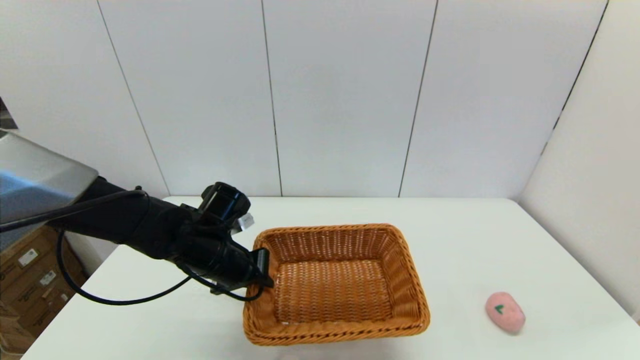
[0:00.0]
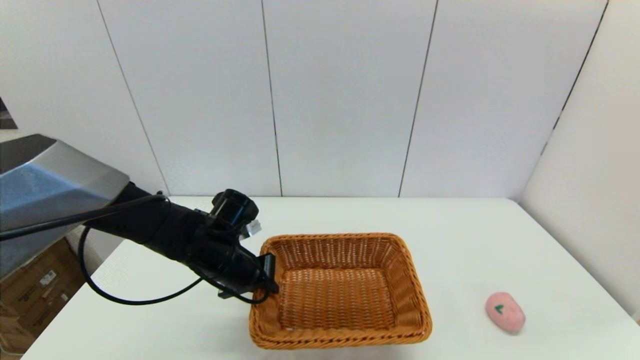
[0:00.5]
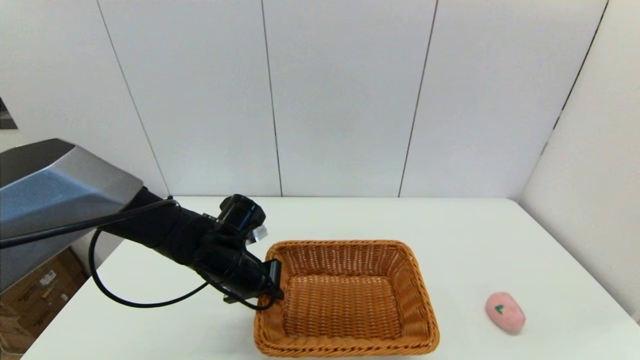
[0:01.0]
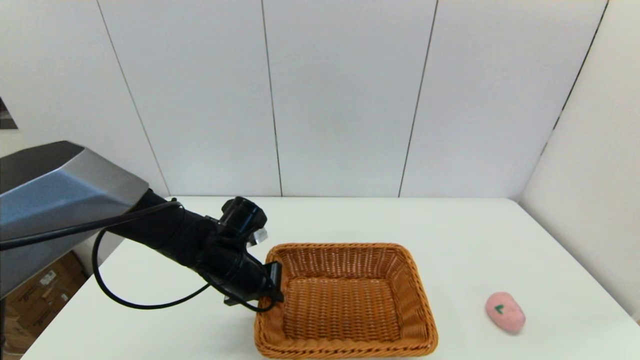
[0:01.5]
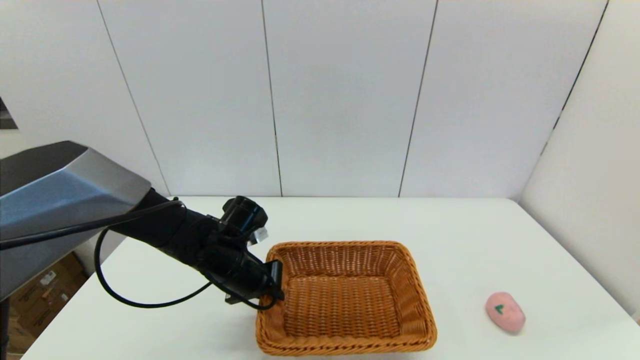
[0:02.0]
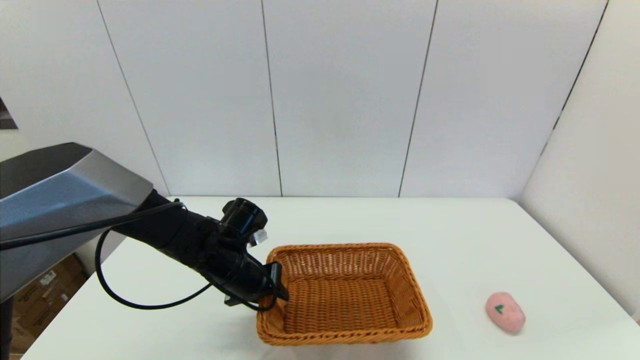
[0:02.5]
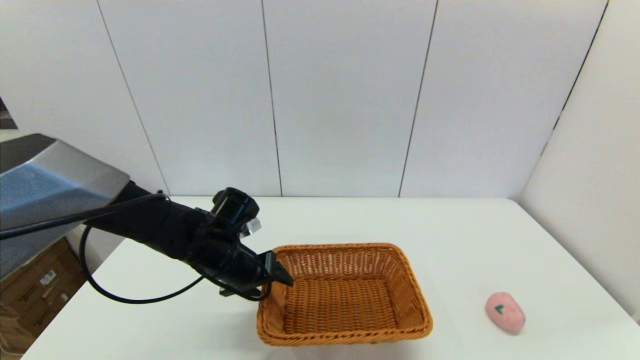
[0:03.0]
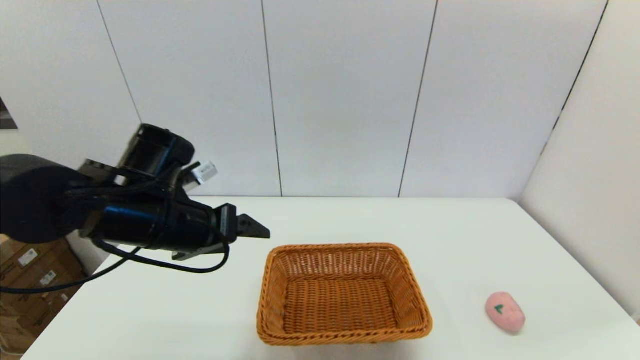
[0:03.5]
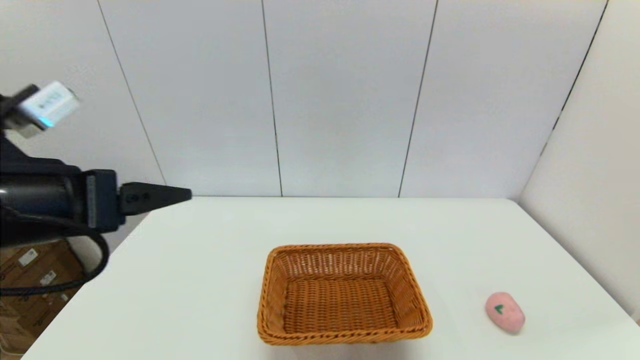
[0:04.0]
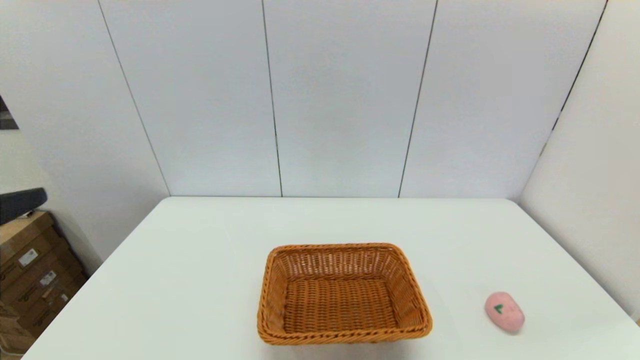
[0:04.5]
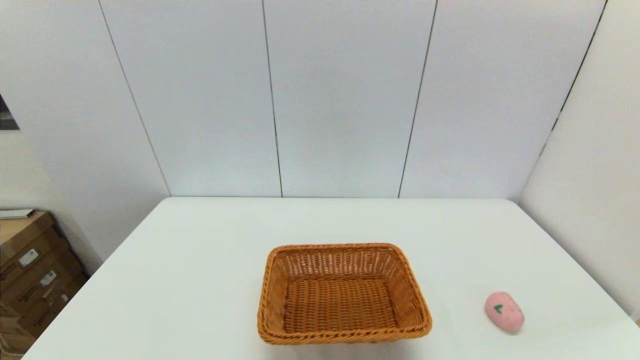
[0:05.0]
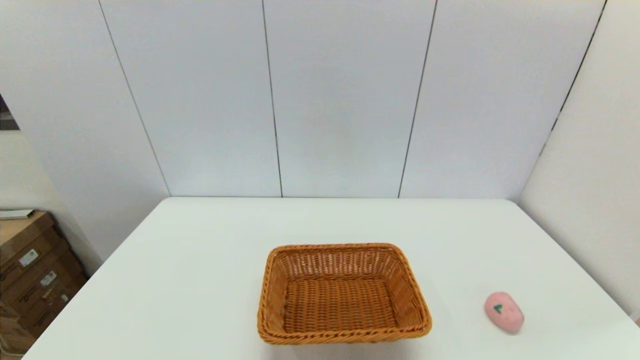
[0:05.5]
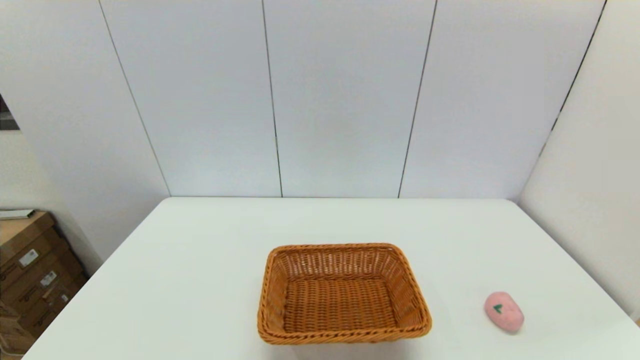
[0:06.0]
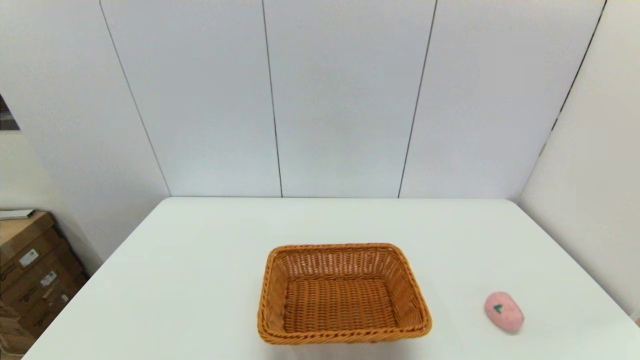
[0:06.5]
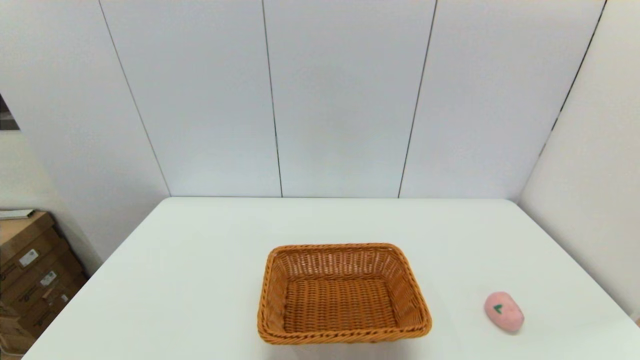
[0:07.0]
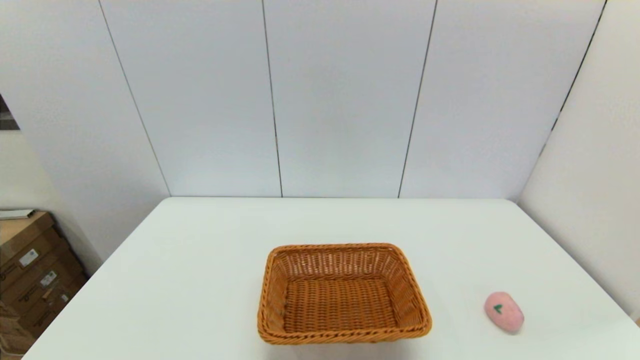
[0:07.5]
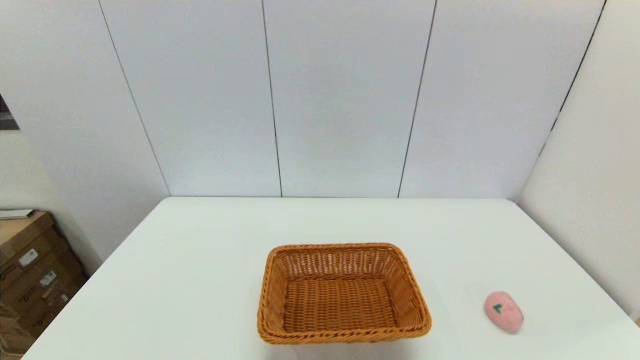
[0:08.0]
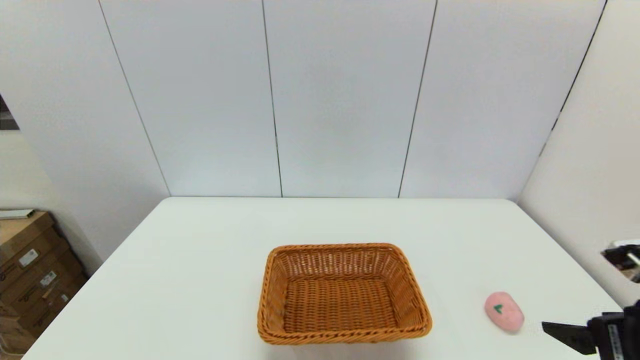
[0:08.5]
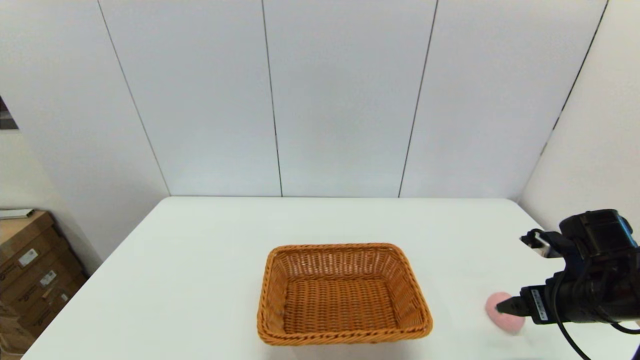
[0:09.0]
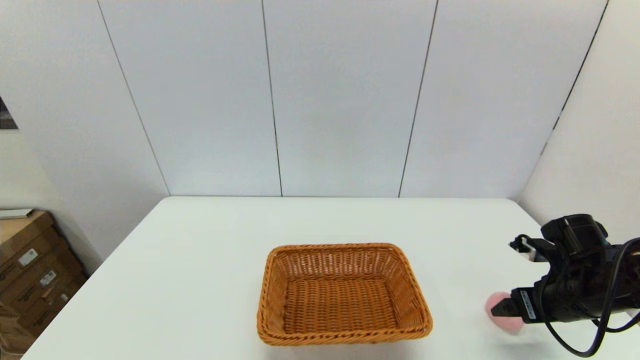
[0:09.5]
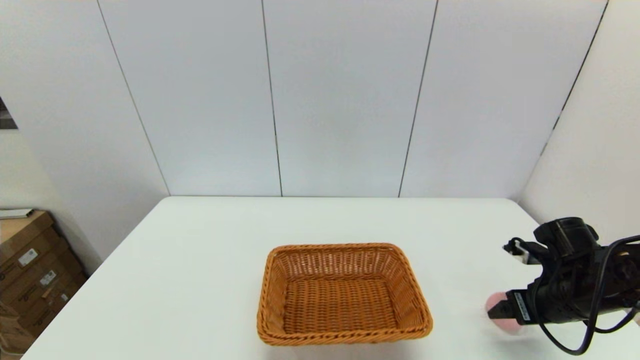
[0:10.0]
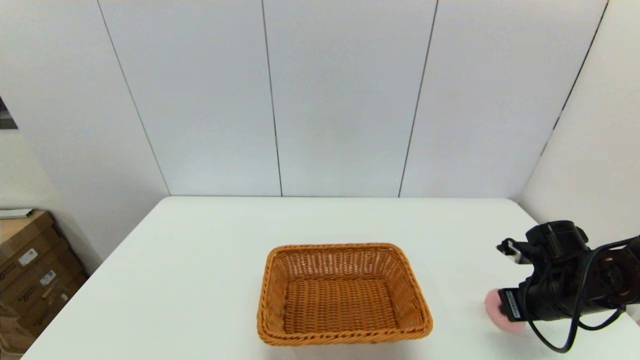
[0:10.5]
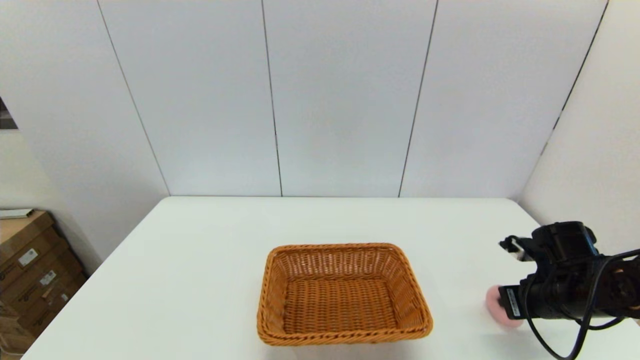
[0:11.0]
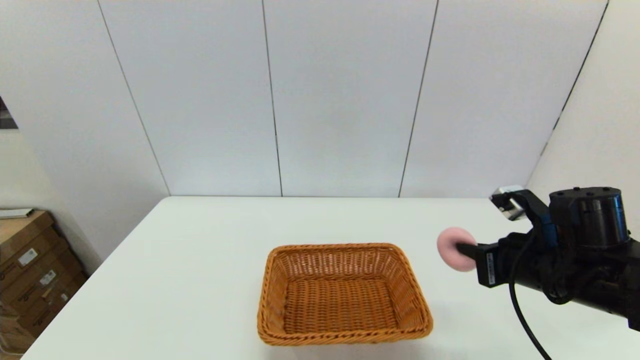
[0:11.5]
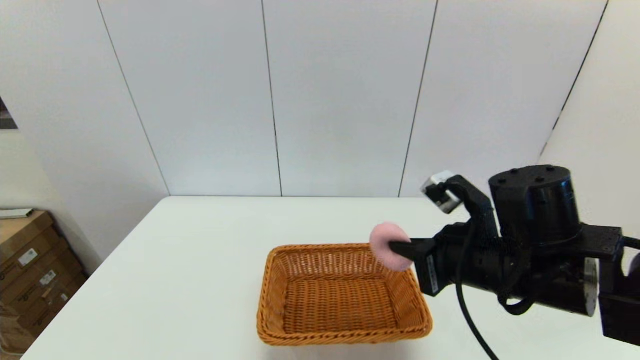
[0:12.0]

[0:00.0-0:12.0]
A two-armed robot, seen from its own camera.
Step, 0:00.0 to 0:02.5: Place the light basket on the middle of the table with the left gripper.
Step, 0:03.5 to 0:10.5: Grasp the peach with the right gripper.
0:00.0 to 0:02.0: There are only small adjustments of the grippers.
0:02.0 to 0:04.0: The left gripper moves upward, backward and to the left, some 30 cm, and opens up.
0:04.0 to 0:06.0: The left gripper heads backward and downward, covering some 25 cm.
0:08.0 to 0:10.0: The right gripper moves forward, roughly 25 cm.
0:10.0 to 0:12.0: The right gripper goes about 20 cm to the left and upward, and closes up.

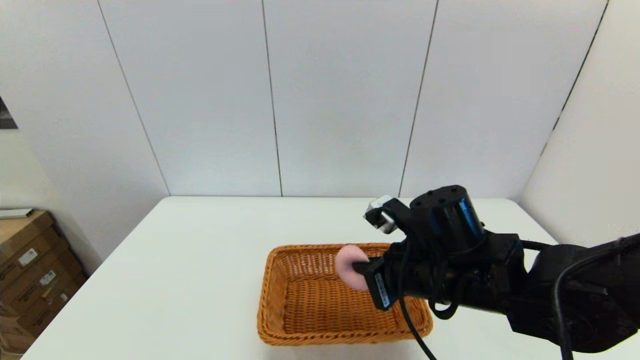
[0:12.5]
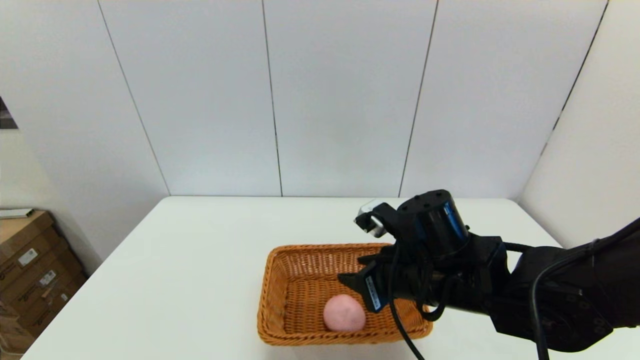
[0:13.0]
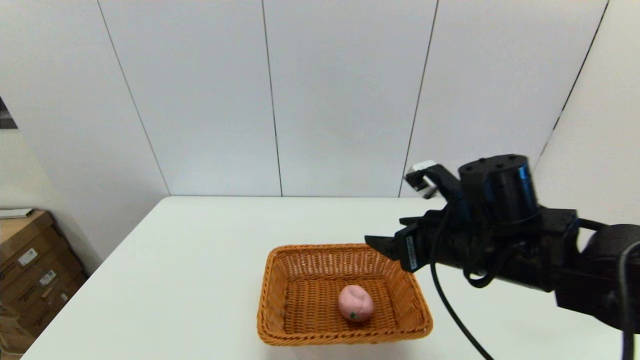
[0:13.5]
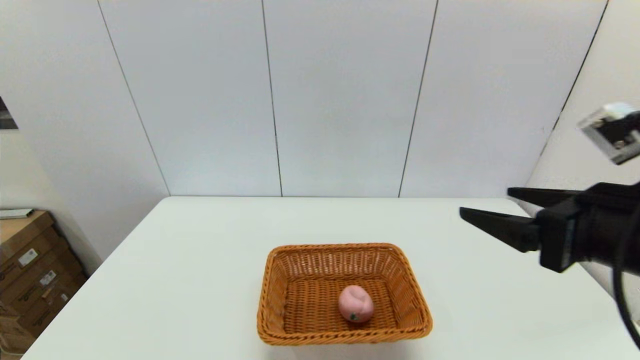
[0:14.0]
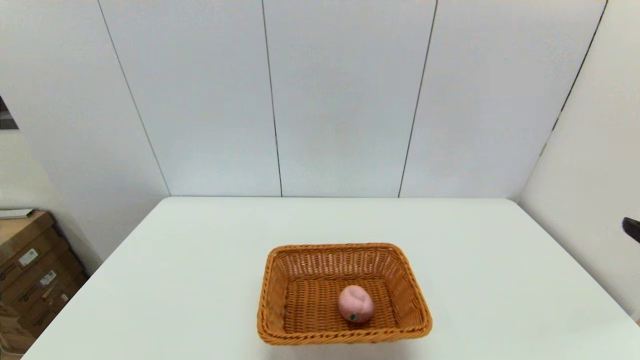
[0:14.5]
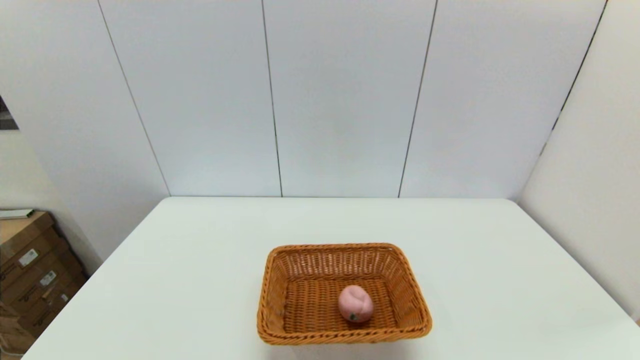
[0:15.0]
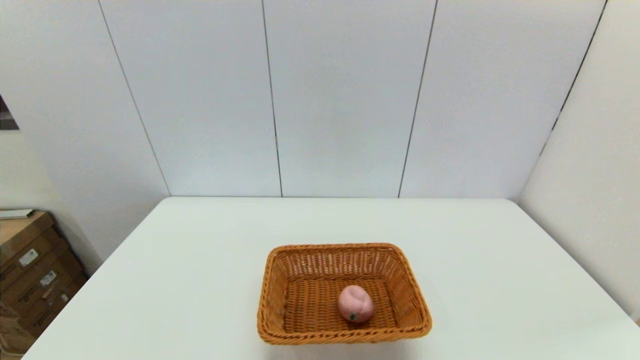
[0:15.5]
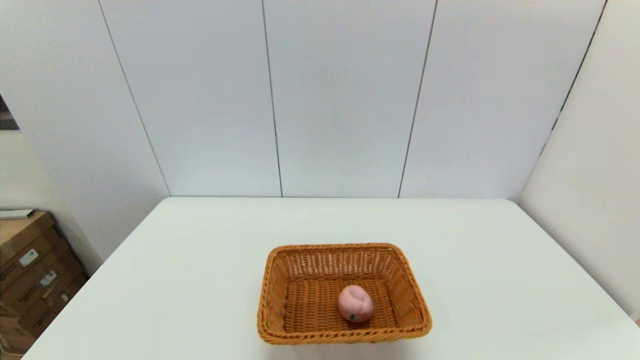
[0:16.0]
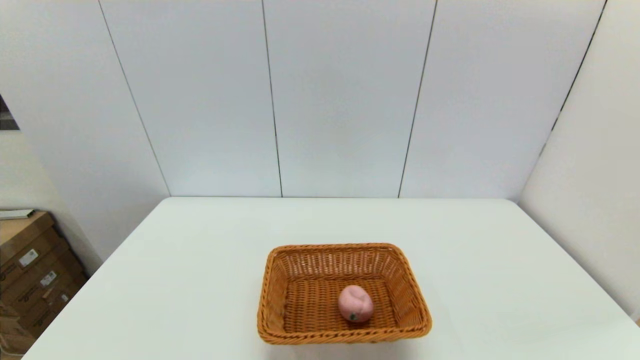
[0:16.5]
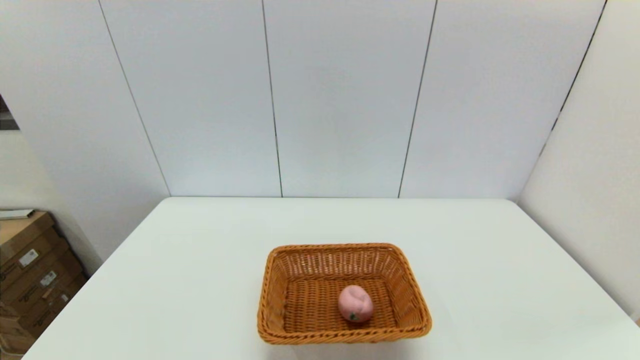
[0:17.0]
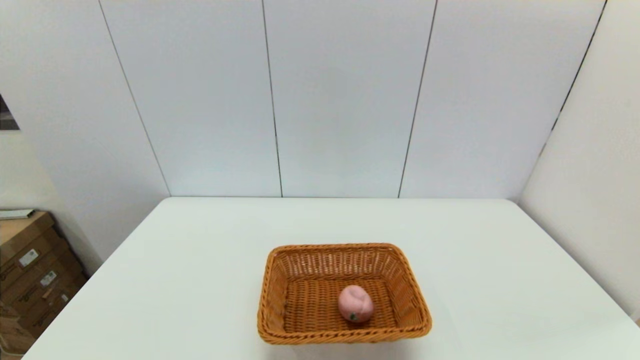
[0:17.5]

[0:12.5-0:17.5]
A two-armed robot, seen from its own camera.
0:12.5 to 0:15.0: The right gripper heads backward, to the right and upward, covering about 30 cm, and opens.

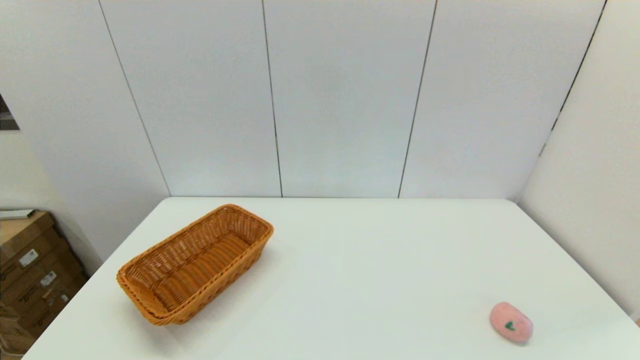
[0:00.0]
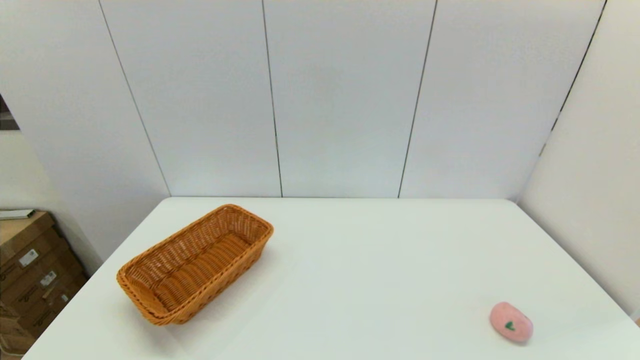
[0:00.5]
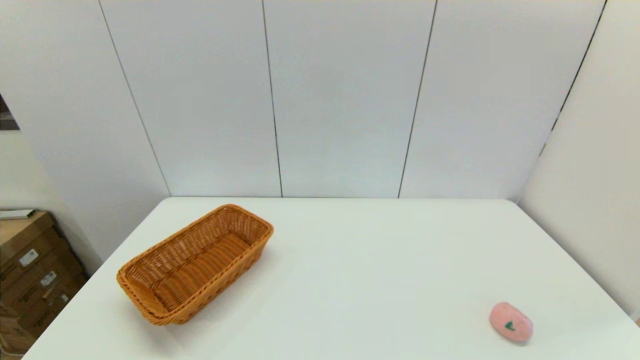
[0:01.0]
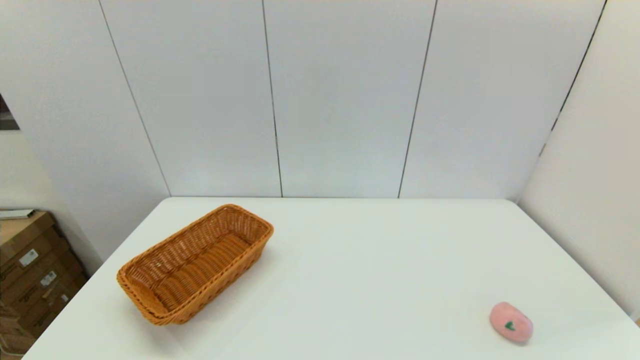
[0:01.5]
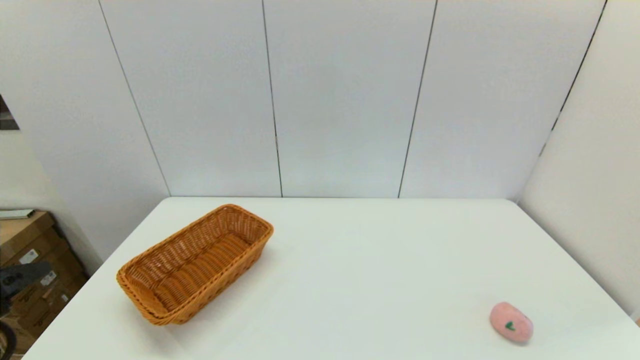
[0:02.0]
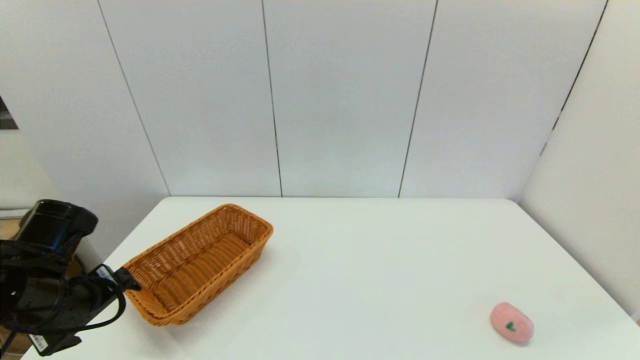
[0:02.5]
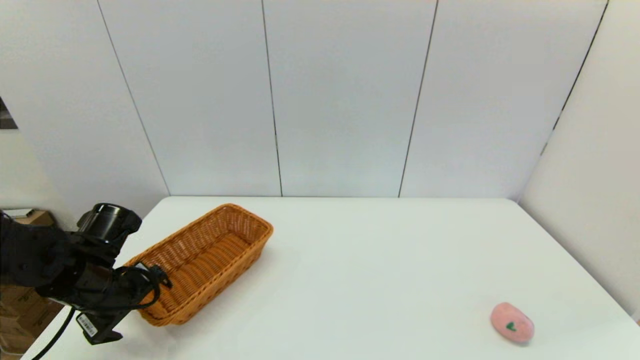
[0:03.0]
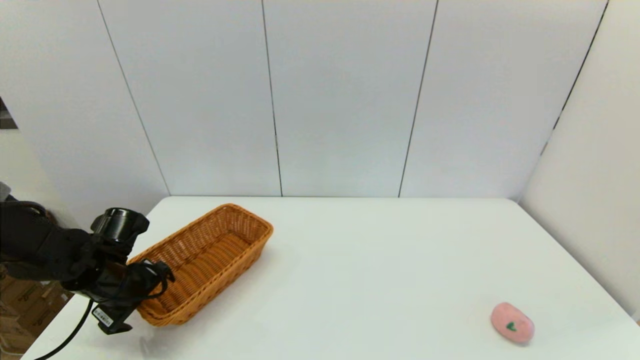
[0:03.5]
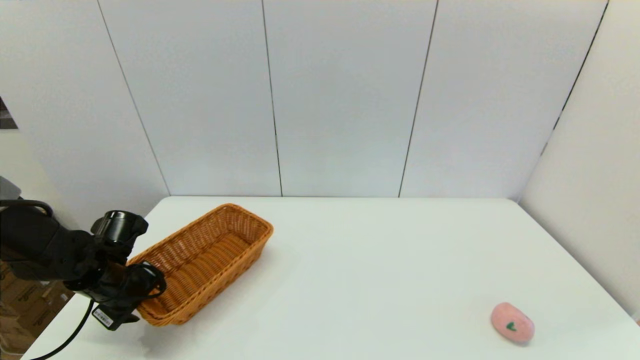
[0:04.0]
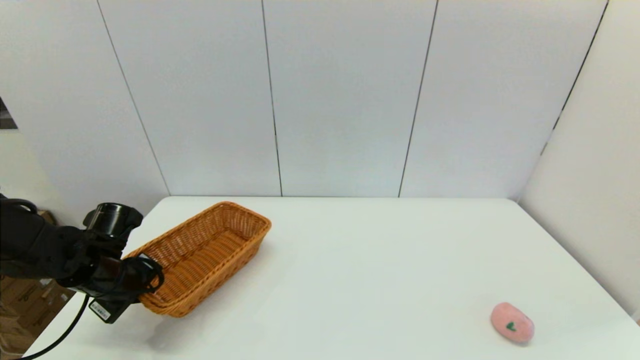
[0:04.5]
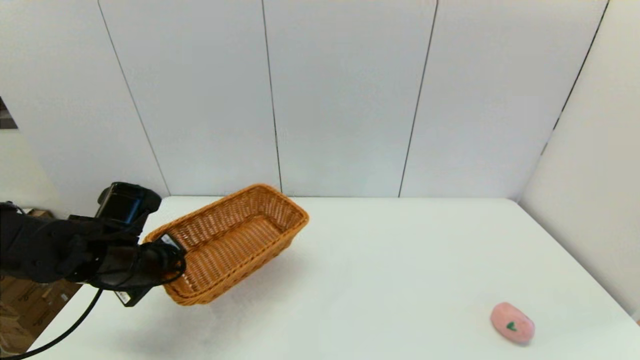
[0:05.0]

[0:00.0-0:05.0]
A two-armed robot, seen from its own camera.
Step, 0:00.0 to 0:04.0: Grasp the light basket with the left gripper.
0:00.0 to 0:02.5: The left gripper travels forward by some 20 cm.
0:02.5 to 0:05.0: The left gripper moves forward, roughly 5 cm, reaches some 10 cm downward, then returns, and closes up.
